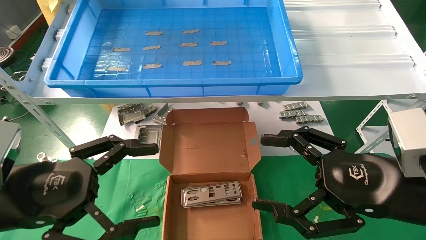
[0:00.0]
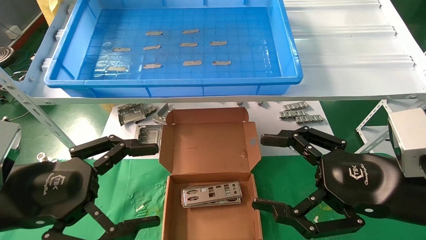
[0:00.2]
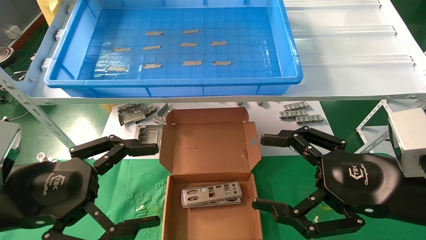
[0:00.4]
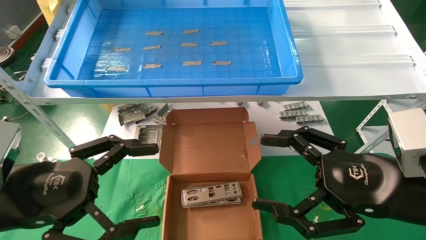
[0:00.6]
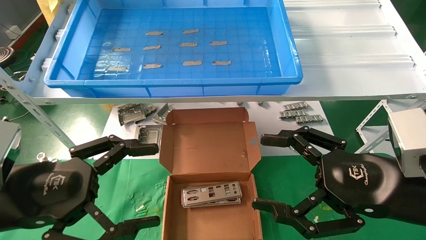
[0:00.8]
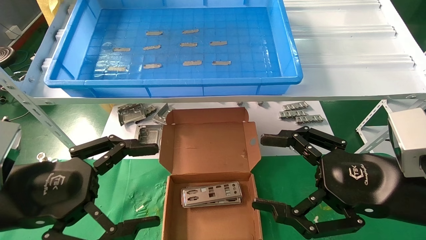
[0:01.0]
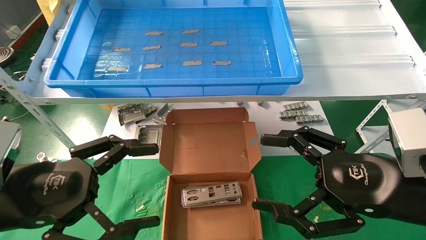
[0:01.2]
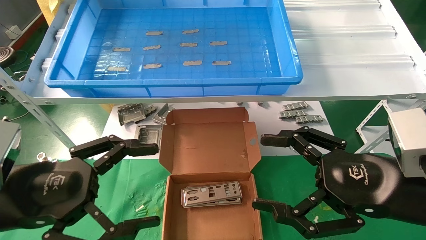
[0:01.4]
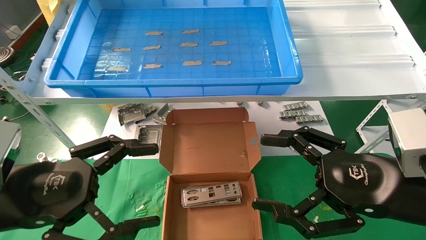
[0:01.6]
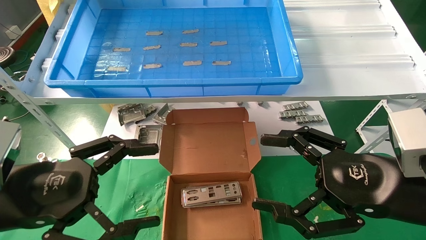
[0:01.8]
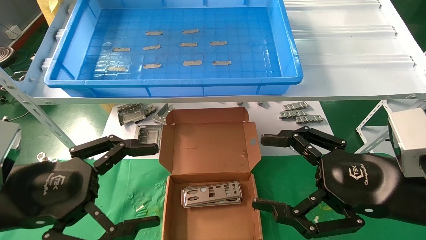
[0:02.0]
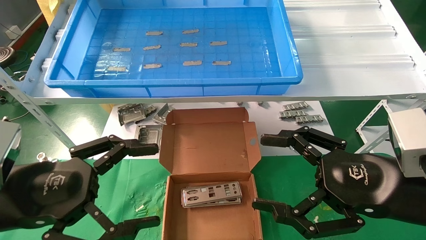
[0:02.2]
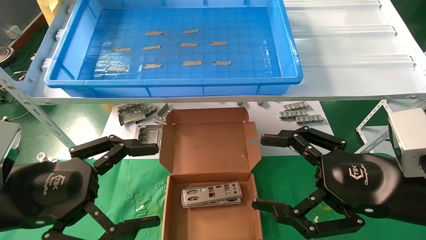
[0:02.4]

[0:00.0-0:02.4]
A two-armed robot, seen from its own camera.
Task of the whole recording: pick up the parts on the tray and put them in the cardboard box.
0:00.0 to 0:02.4: Both grippers stay about where they are.
